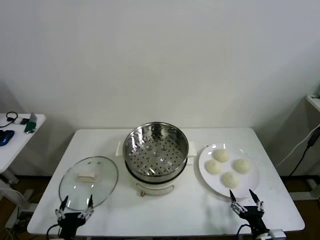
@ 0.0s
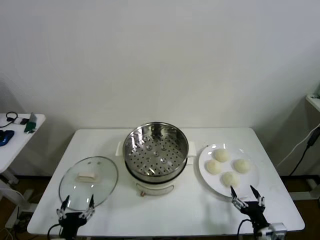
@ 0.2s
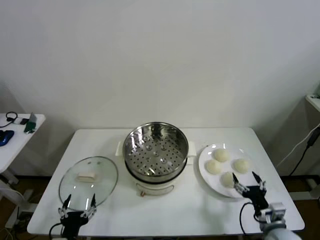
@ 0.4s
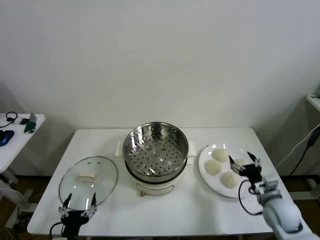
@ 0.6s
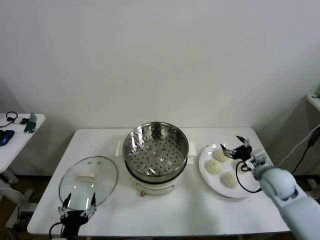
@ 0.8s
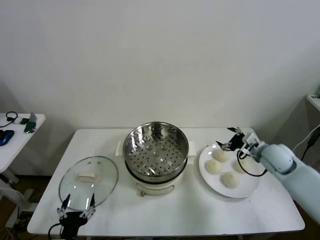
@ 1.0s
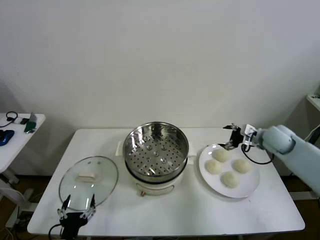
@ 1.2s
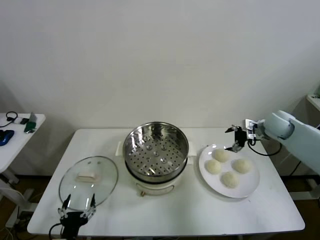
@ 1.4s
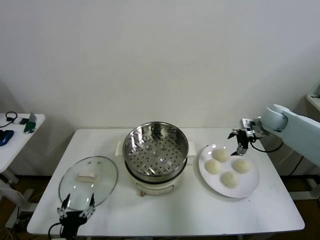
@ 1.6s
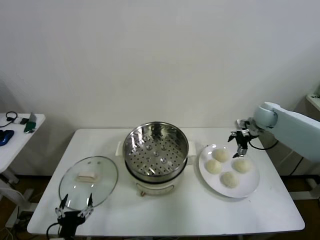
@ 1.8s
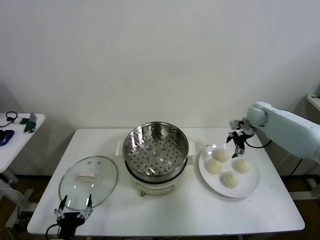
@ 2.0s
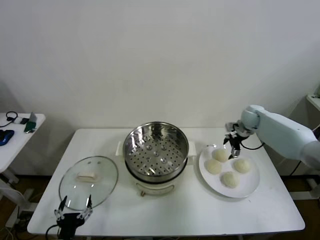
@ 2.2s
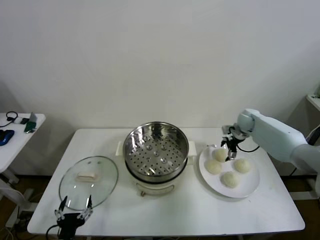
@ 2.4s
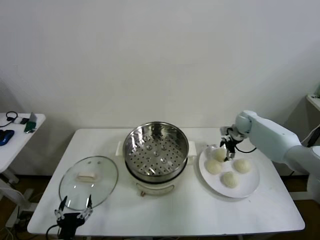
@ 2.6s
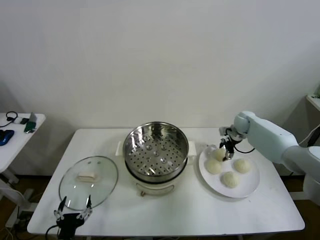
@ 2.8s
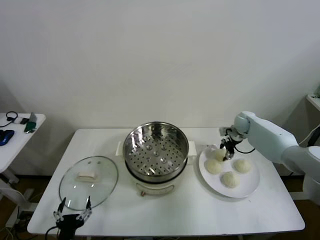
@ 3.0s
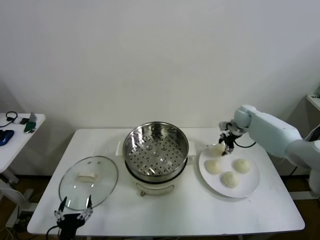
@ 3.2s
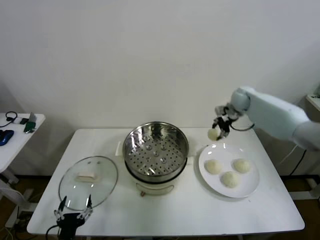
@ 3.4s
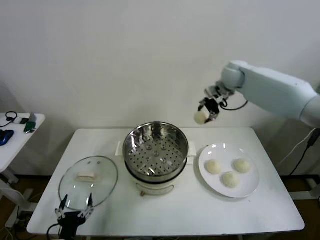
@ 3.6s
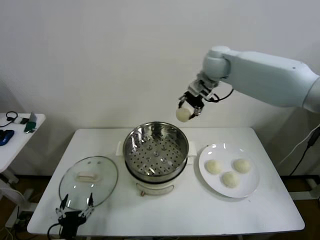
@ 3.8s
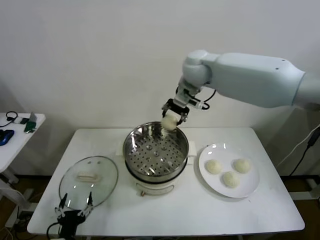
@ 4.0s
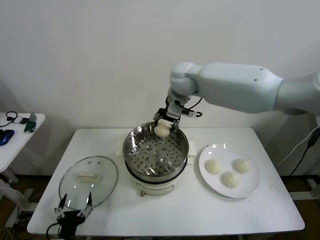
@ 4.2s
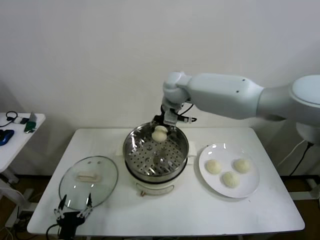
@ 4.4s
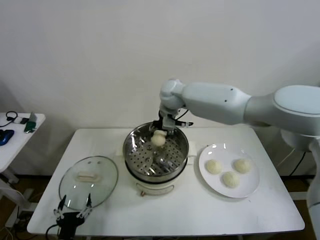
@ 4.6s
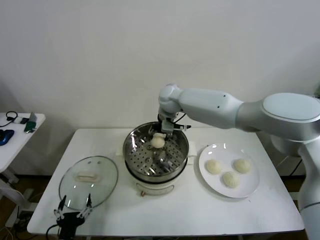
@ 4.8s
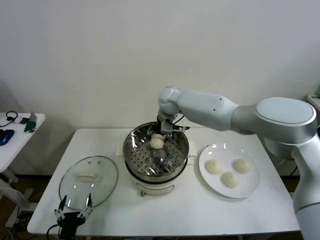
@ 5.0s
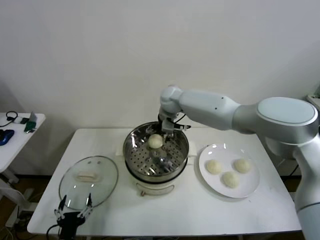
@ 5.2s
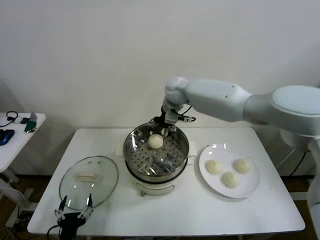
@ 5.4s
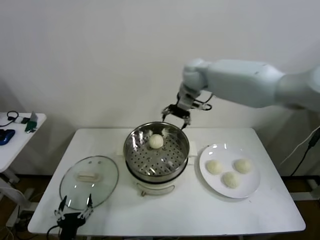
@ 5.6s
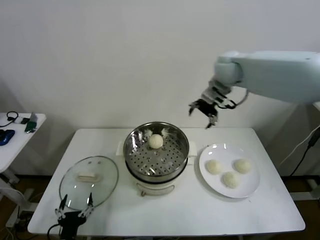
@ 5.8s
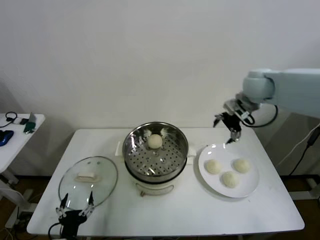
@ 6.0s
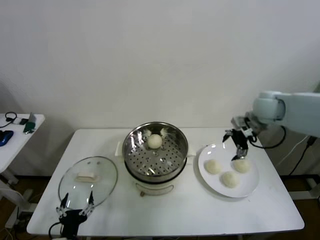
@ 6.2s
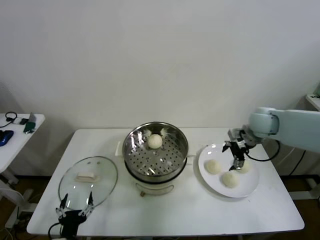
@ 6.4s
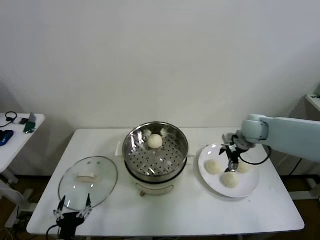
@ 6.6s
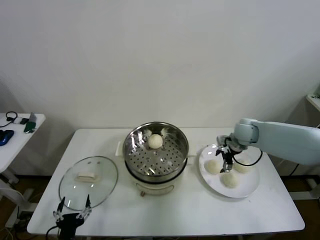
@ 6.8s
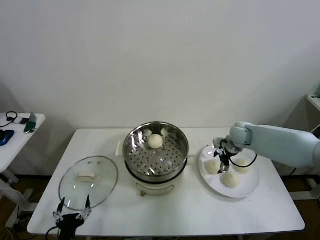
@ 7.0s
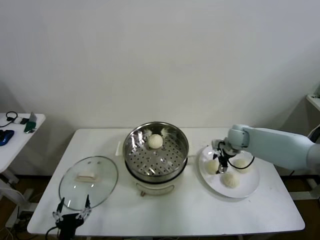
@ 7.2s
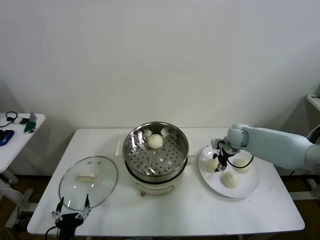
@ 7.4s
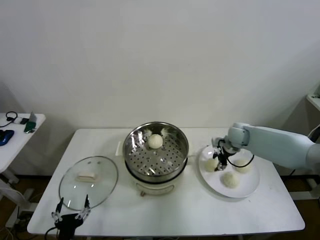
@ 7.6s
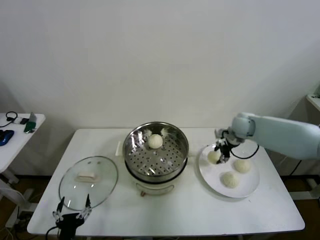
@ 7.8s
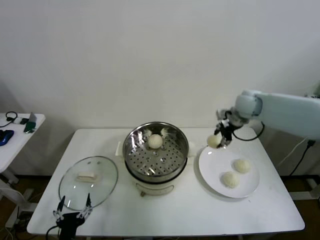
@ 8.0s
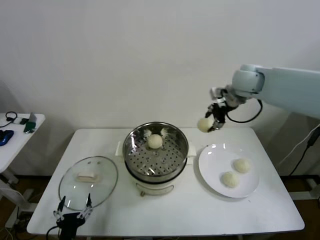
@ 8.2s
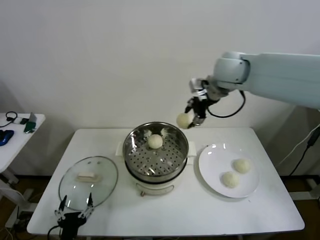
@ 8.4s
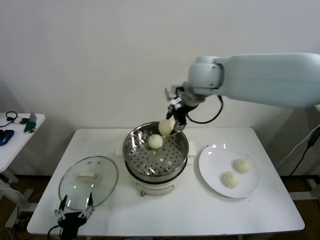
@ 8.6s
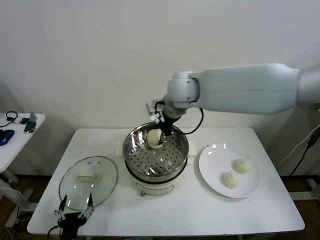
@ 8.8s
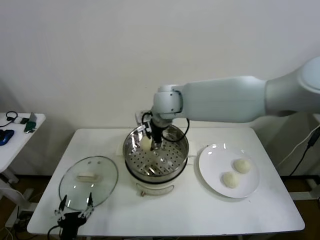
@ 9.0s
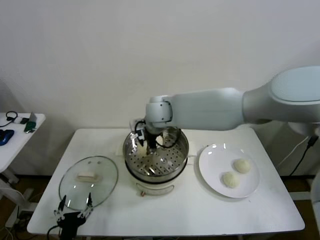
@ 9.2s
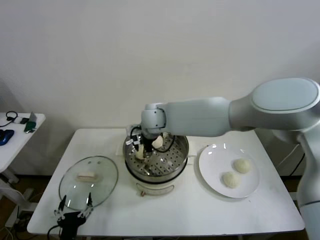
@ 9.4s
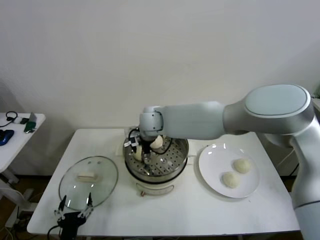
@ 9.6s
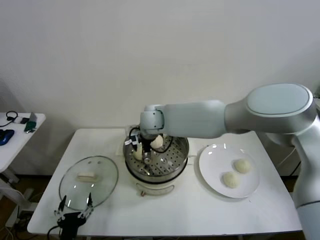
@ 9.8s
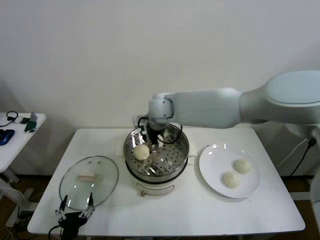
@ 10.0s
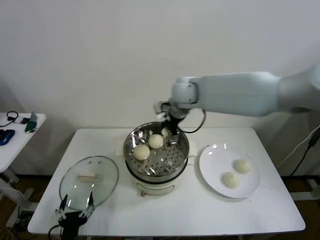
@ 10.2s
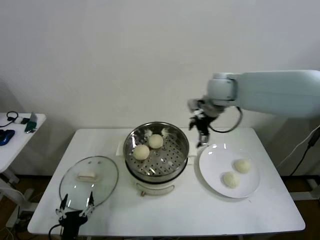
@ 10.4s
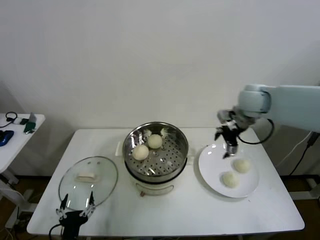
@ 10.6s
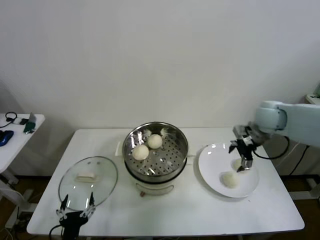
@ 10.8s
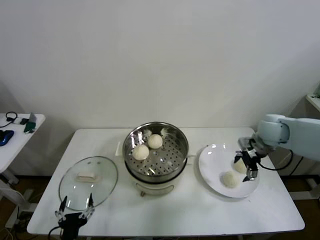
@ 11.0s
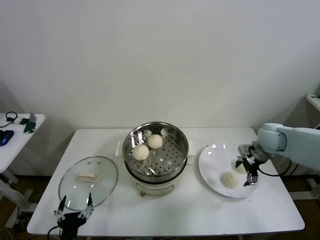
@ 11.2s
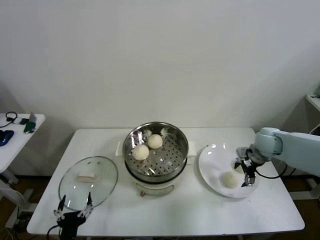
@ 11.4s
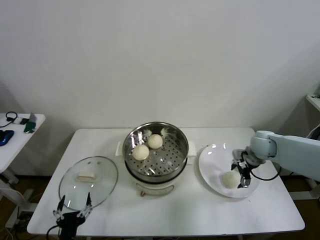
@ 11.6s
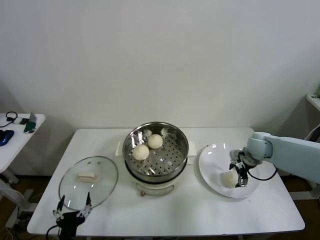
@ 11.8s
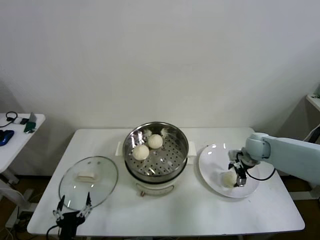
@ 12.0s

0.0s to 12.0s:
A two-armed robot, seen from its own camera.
Step, 0.0s to 2.8s: Grasp the baozi in the plate with right gripper.
Step, 3.0s to 5.0s: Place the baozi on the steamer with right gripper.
Step, 5.2s to 7.4s: Grasp the baozi in the plate with right gripper.
Step, 7.6s to 9.6s: Place the baozi on the steamer with right gripper.
1.6s to 3.0s: The right gripper goes about 10 cm downward and forward, and closes.
3.0s to 4.4s: The right gripper travels to the left and upward by approximately 35 cm.
4.4s to 6.0s: The right gripper goes about 25 cm to the right, and opens its fingers.
6.0s to 7.6s: The right gripper shifts about 20 cm downward, and closes.
7.6s to 9.0s: The right gripper goes some 35 cm to the left and upward.
9.0s to 10.4s: The right gripper travels to the right by roughly 20 cm, and opens.
10.4s to 12.0s: The right gripper travels downward and to the right by about 25 cm.

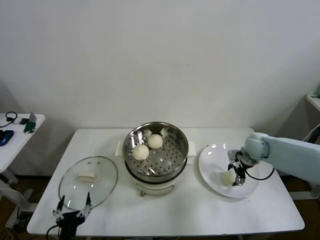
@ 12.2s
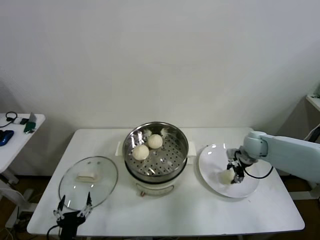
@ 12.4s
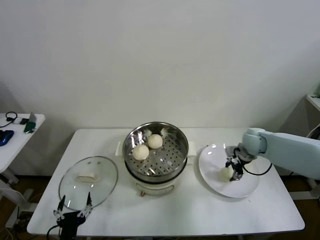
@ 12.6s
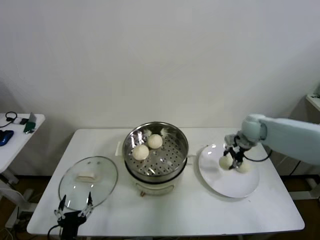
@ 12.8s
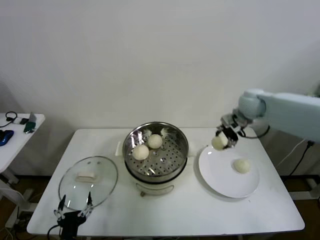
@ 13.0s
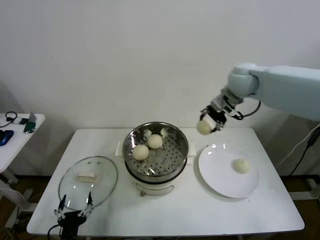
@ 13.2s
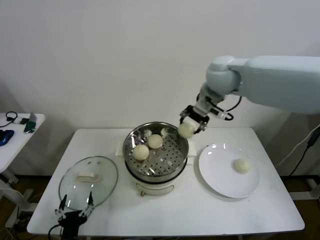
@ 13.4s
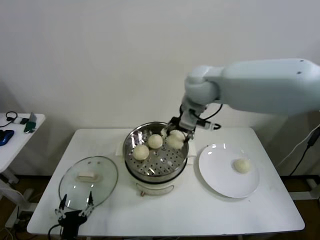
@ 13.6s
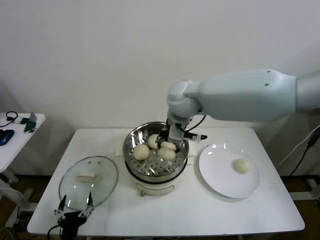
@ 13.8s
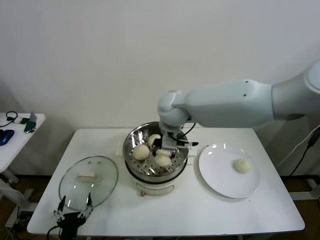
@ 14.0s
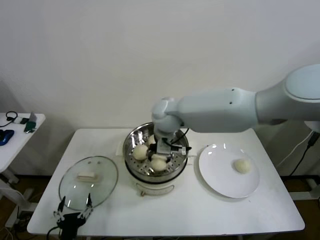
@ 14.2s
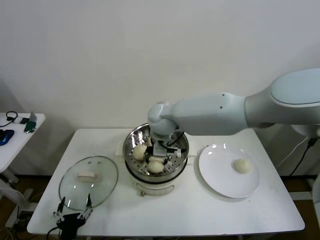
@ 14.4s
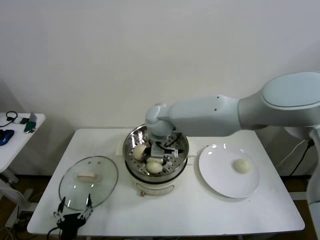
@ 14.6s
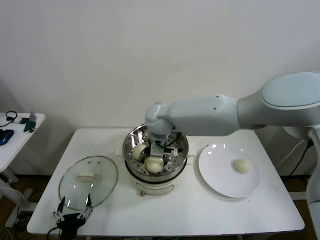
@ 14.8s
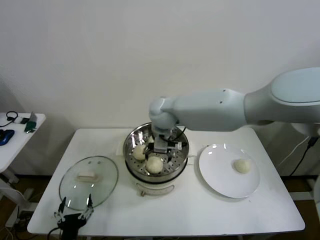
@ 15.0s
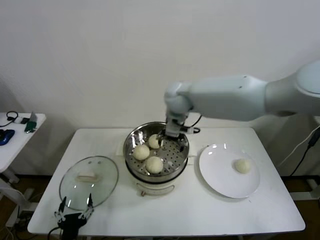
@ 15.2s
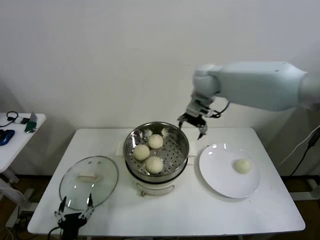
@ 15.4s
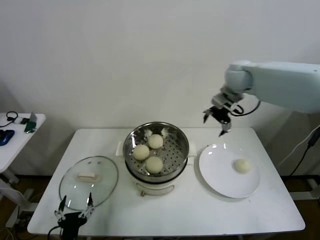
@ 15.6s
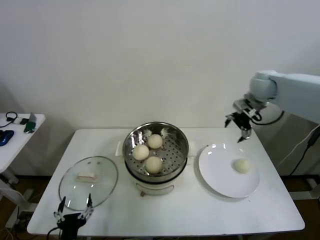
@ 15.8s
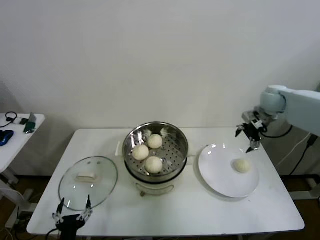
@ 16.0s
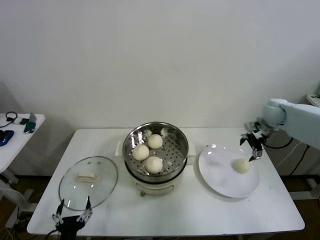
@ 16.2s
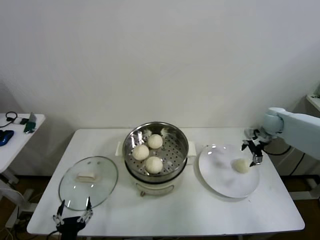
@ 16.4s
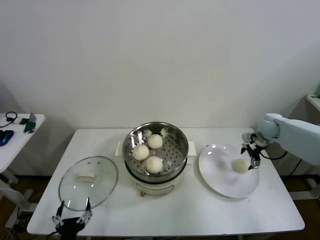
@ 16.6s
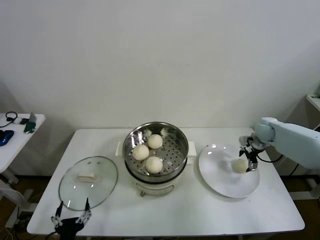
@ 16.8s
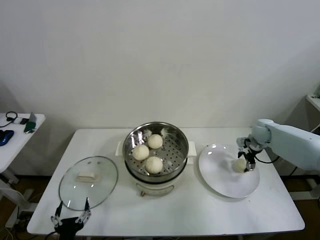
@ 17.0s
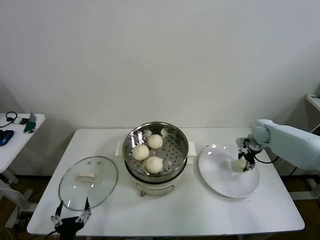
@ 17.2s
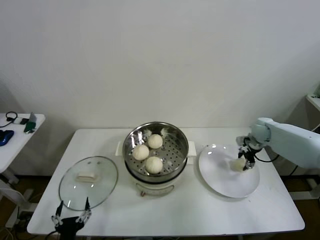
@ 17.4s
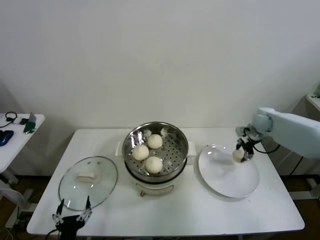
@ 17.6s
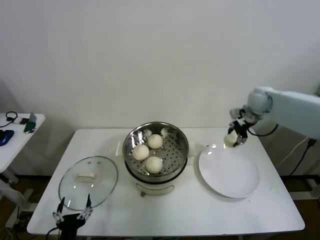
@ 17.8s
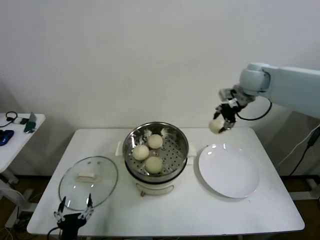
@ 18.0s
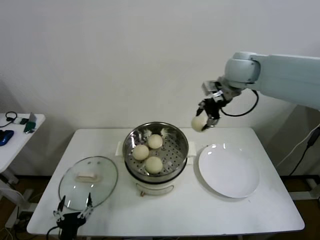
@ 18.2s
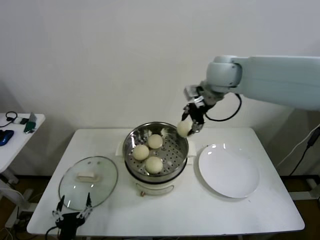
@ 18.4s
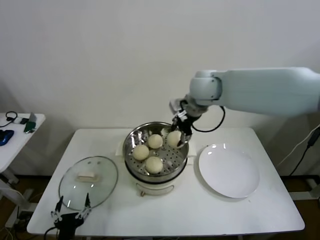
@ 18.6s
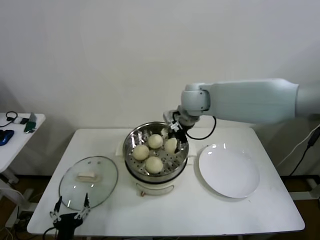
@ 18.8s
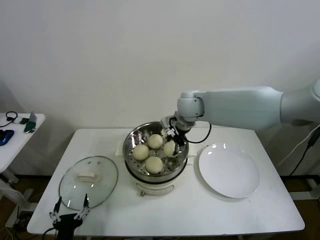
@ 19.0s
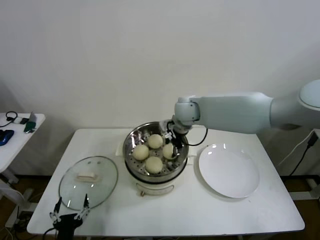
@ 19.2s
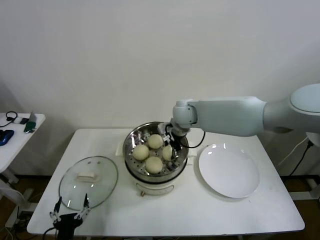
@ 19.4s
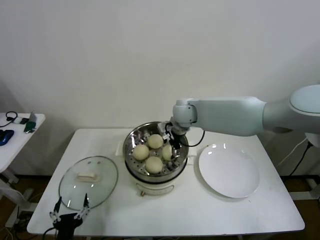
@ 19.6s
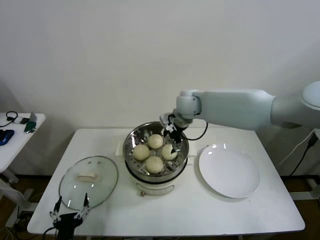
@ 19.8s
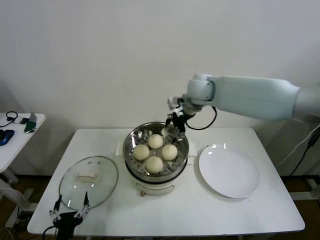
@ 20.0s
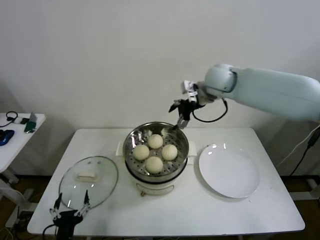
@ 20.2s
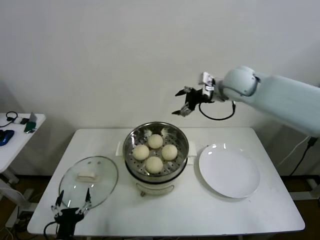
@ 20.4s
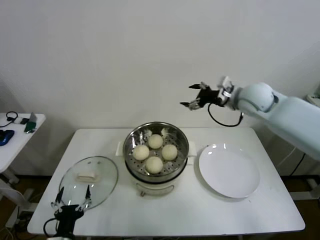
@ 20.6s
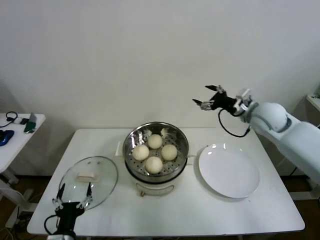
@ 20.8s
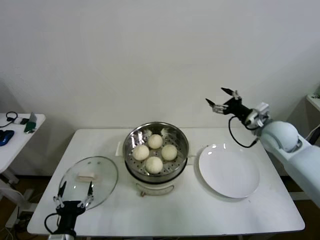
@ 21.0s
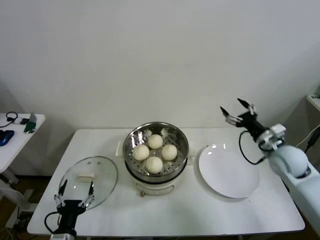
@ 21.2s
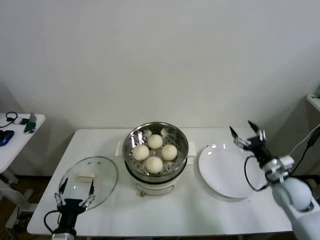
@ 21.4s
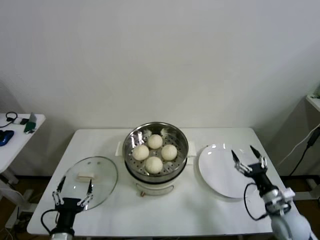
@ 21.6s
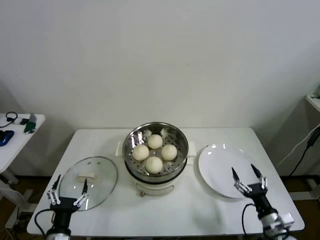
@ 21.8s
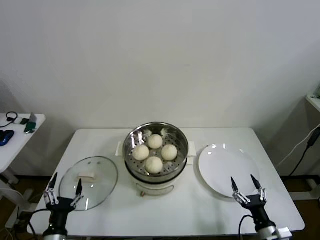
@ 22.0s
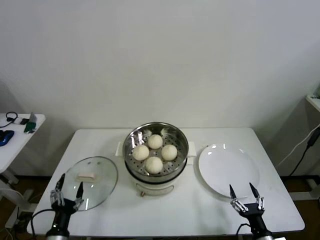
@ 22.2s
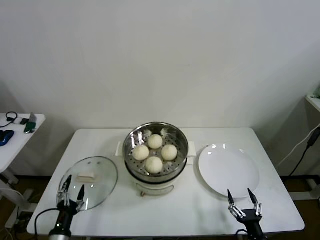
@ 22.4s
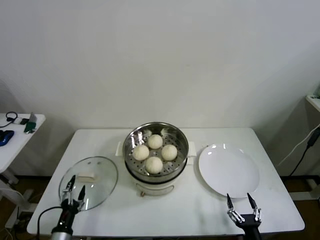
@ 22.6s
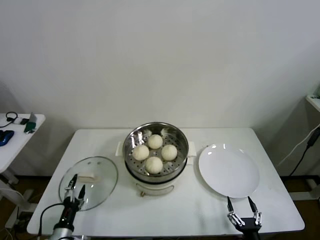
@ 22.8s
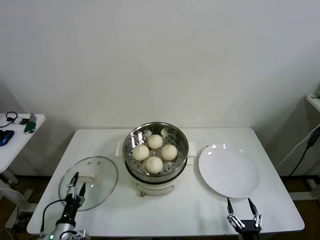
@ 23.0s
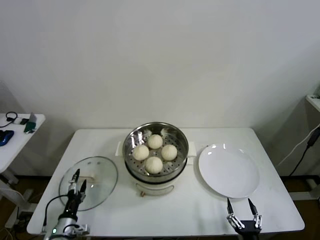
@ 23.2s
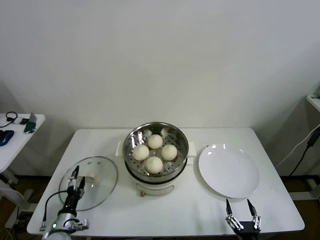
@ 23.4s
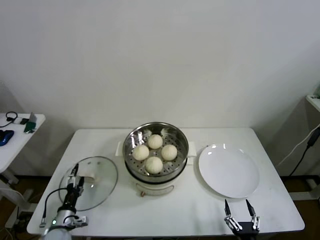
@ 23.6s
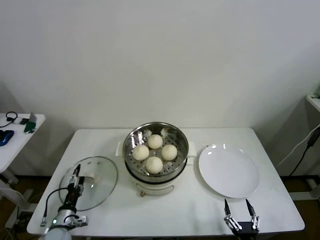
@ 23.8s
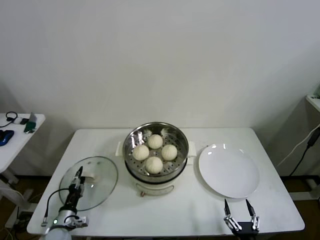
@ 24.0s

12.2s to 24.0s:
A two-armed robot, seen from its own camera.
Step, 12.6s to 14.8s: Place the baozi on the steamer with right gripper.
Step, 15.0s to 17.2s: Grasp the baozi in the plate with right gripper.
Step, 17.4s to 19.6s: Place the baozi on the steamer with right gripper.
12.2s to 13.6s: The right gripper shifts roughly 35 cm to the left and upward, and closes up.
13.6s to 15.2s: The right gripper travels downward and forward by some 5 cm, and opens its fingers.
15.2s to 16.6s: The right gripper travels to the right and downward by some 40 cm.
16.6s to 18.2s: The right gripper shifts approximately 30 cm upward and to the left, and closes up.
18.2s to 19.6s: The right gripper heads downward and to the left, covering roughly 20 cm, and opens.
19.6s to 21.0s: The right gripper moves to the right, roughly 25 cm.
21.0s to 22.6s: The right gripper goes approximately 40 cm backward and downward. Meanwhile the left gripper heads downward and to the left, covering approximately 10 cm.
22.6s to 24.0s: The left gripper moves forward and downward, about 10 cm, and closes up.
